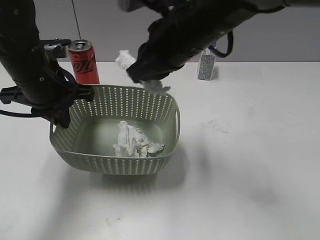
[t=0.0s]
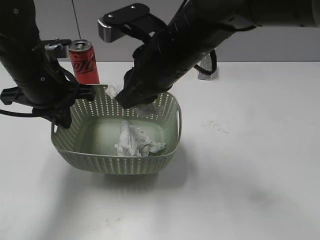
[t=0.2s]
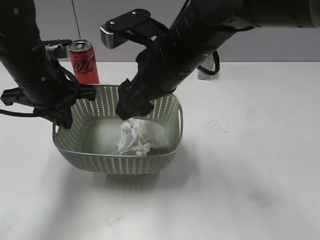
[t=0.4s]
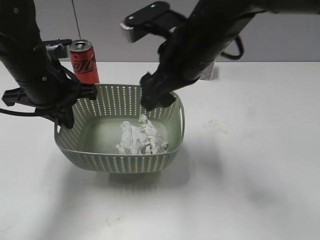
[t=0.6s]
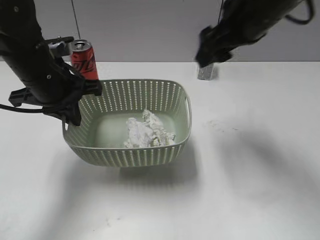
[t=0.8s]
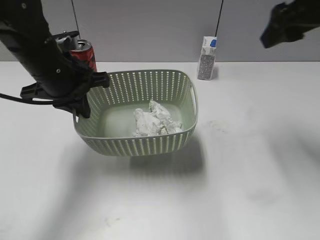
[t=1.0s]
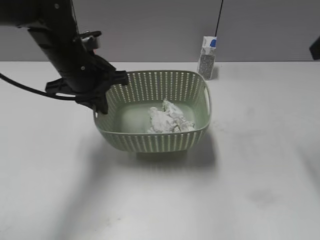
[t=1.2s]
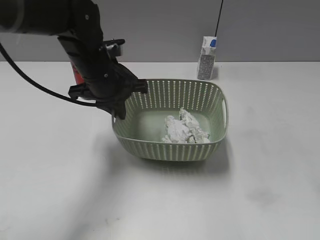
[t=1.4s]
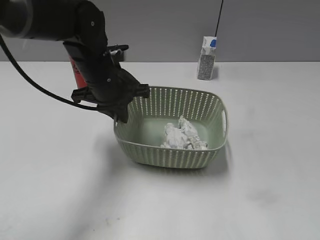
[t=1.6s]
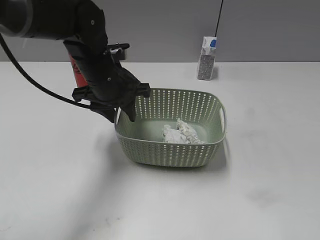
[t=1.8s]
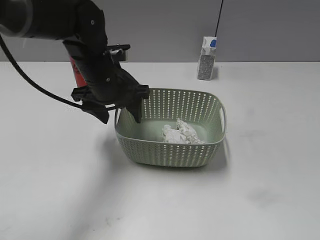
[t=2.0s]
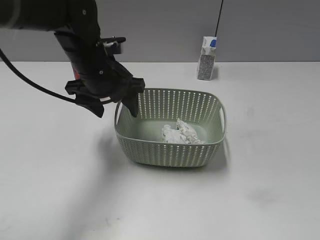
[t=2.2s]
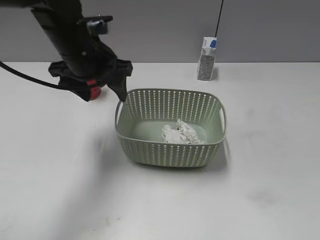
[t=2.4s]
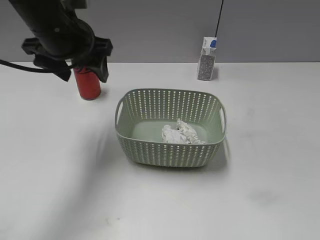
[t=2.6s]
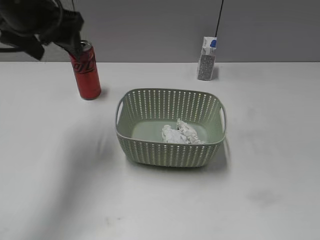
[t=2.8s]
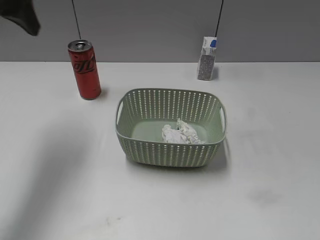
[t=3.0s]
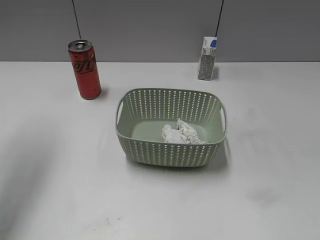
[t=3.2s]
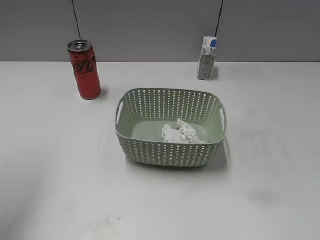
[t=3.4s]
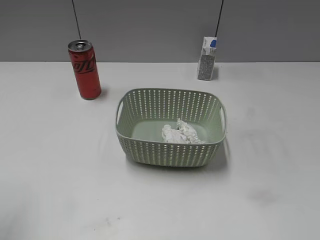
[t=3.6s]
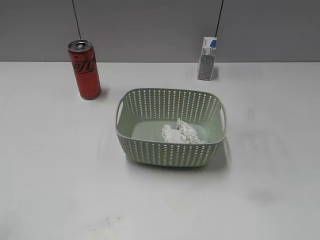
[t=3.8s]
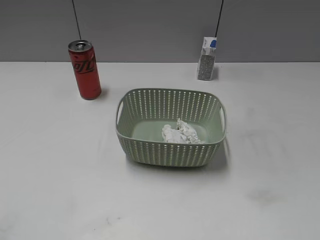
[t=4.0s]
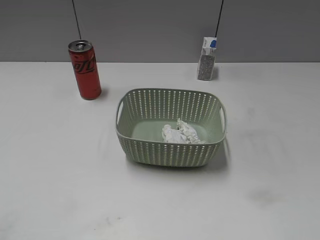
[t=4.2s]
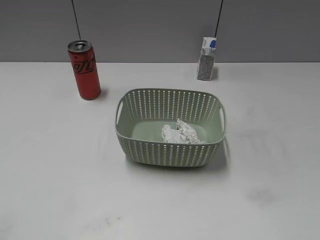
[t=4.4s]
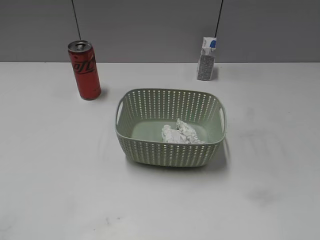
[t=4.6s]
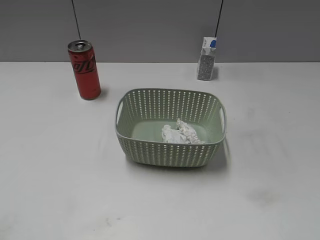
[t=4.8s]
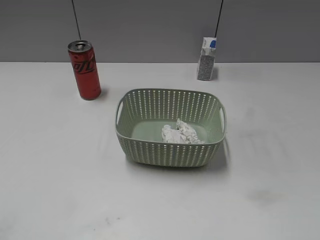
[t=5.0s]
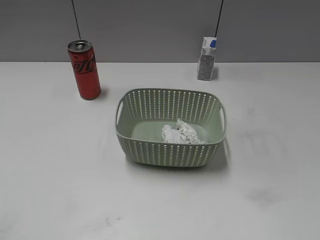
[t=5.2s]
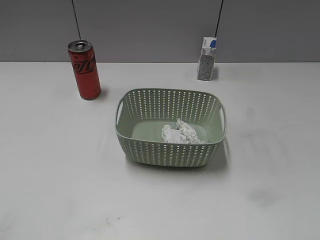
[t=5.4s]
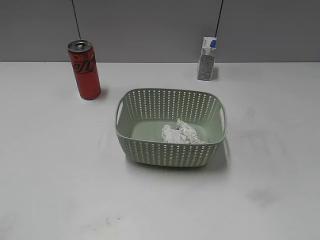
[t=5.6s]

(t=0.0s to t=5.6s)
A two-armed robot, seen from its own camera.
Step, t=0.0s - t=0.6s: Place the waste paper in the basket with right gripper.
Step, t=0.8s - t=1.8s: Place the basket on the table with left gripper.
t=0.0s - t=1.4s: The left gripper moves to the right, roughly 10 cm, while the right gripper goes approximately 25 cm to the right and backward, and opens.
t=1.4s - t=2.8s: The left gripper is displaced upward and to the left by roughly 15 cm, and opens up. Meanwhile the right gripper is displaced backward by roughly 20 cm.
t=2.8s - t=4.2s: The left gripper goes about 35 cm backward and to the left.

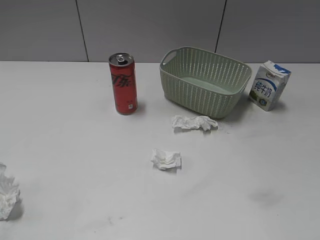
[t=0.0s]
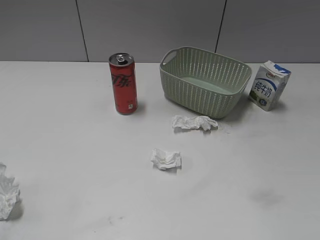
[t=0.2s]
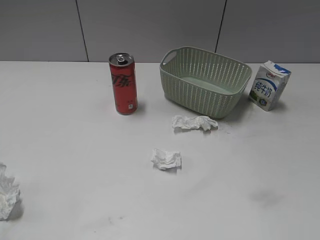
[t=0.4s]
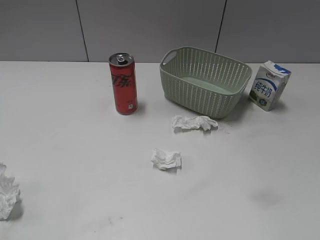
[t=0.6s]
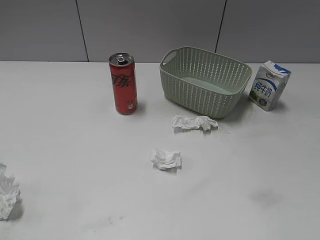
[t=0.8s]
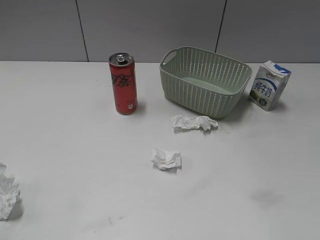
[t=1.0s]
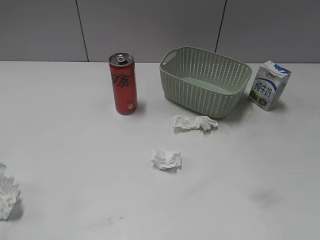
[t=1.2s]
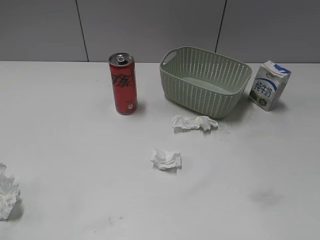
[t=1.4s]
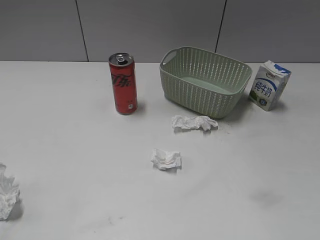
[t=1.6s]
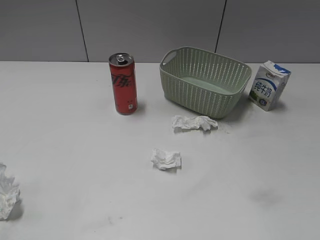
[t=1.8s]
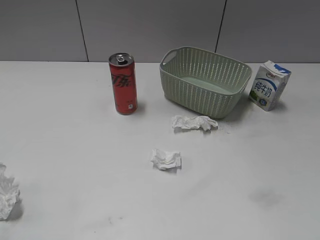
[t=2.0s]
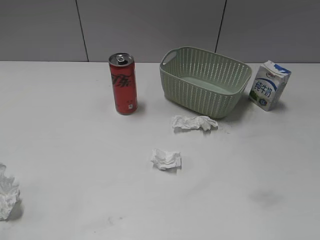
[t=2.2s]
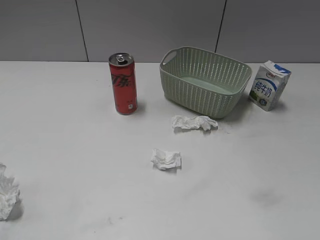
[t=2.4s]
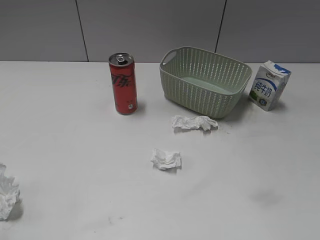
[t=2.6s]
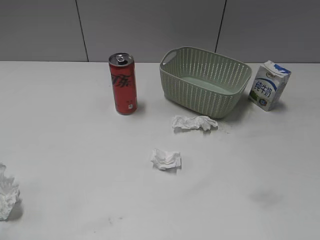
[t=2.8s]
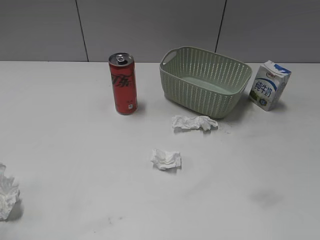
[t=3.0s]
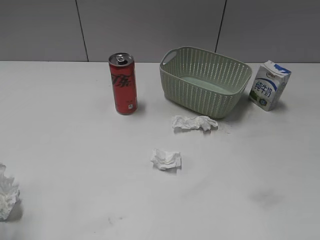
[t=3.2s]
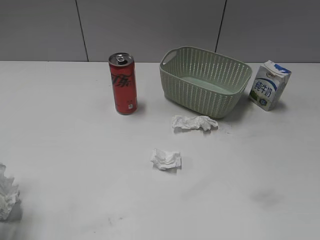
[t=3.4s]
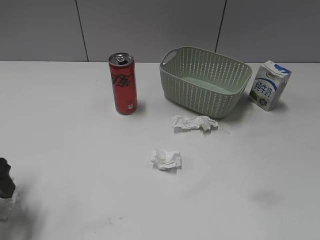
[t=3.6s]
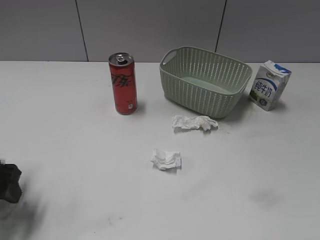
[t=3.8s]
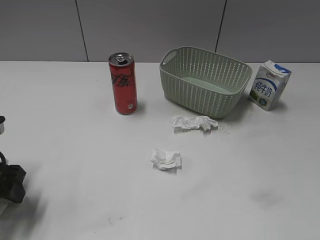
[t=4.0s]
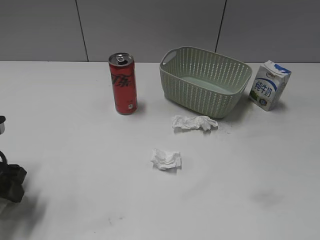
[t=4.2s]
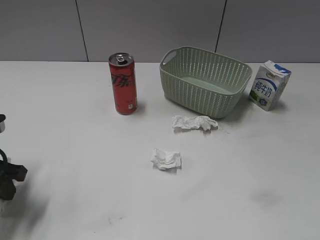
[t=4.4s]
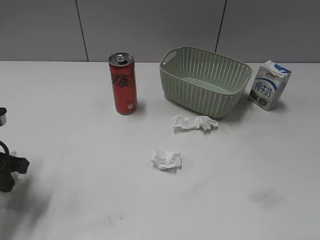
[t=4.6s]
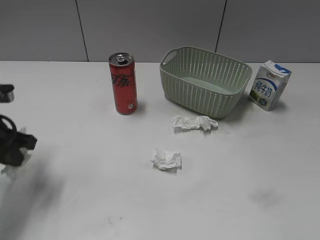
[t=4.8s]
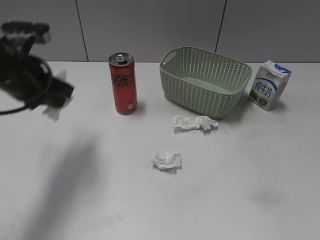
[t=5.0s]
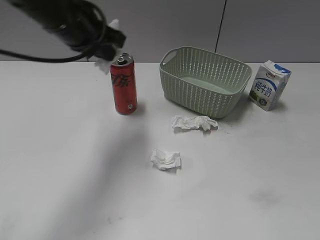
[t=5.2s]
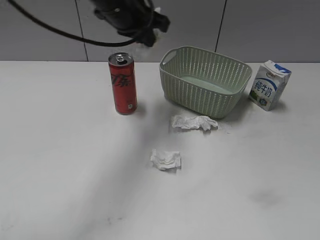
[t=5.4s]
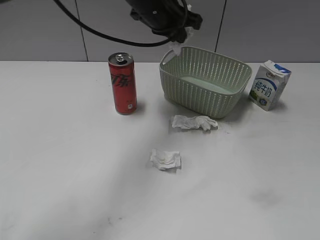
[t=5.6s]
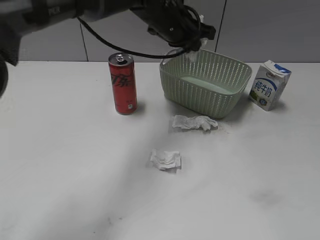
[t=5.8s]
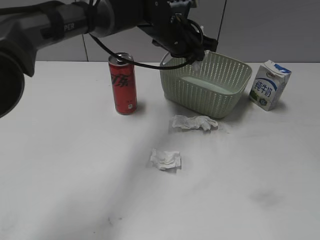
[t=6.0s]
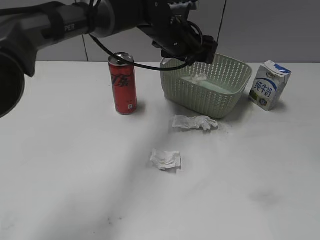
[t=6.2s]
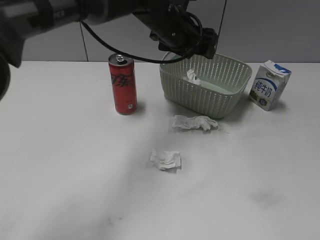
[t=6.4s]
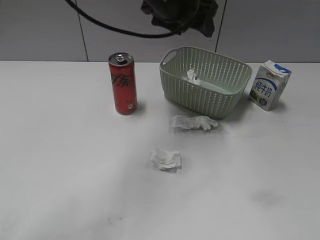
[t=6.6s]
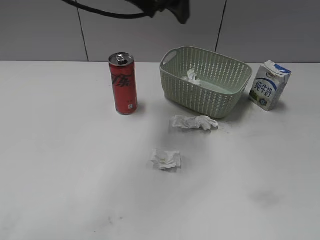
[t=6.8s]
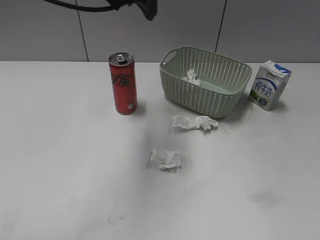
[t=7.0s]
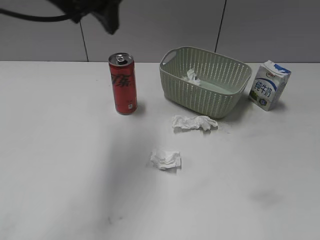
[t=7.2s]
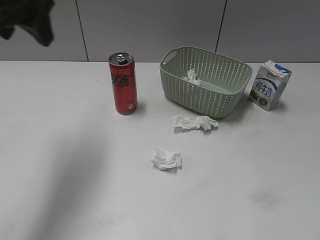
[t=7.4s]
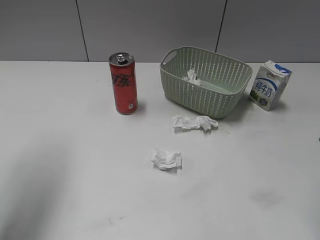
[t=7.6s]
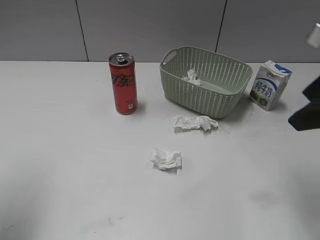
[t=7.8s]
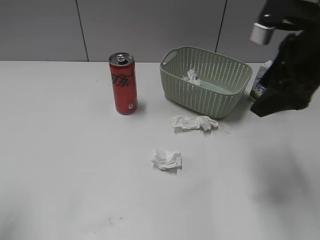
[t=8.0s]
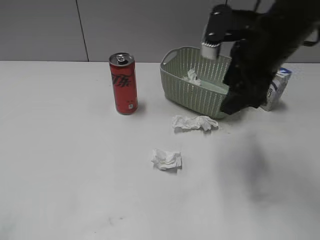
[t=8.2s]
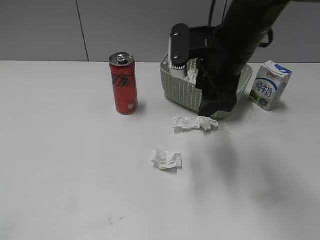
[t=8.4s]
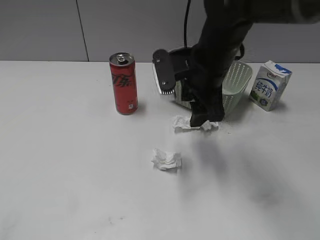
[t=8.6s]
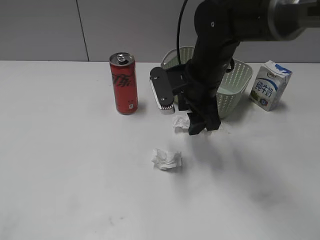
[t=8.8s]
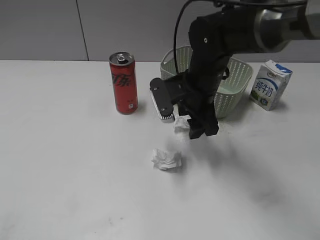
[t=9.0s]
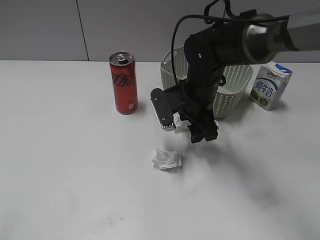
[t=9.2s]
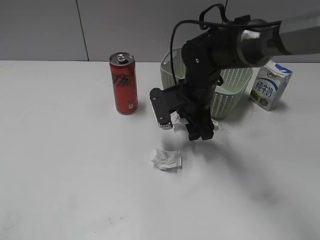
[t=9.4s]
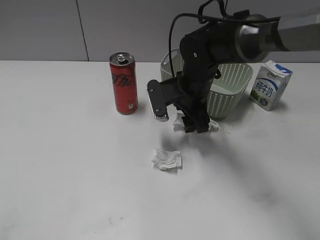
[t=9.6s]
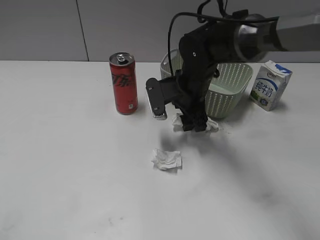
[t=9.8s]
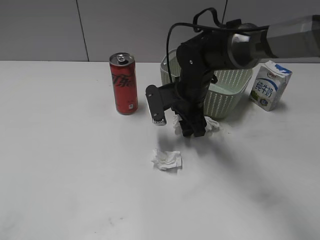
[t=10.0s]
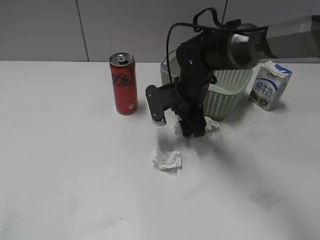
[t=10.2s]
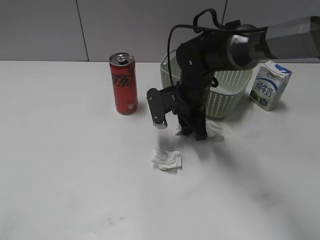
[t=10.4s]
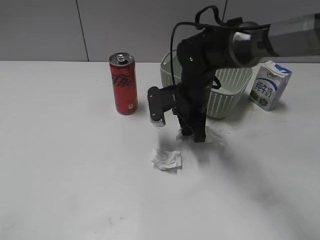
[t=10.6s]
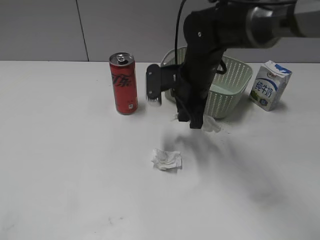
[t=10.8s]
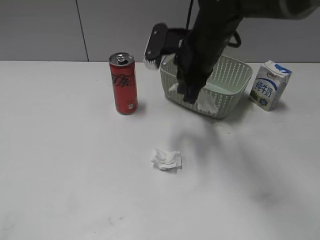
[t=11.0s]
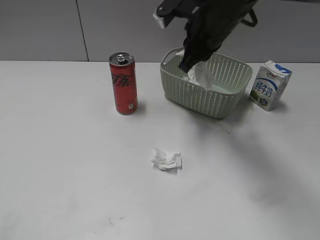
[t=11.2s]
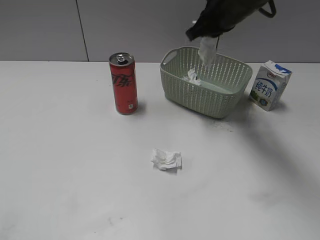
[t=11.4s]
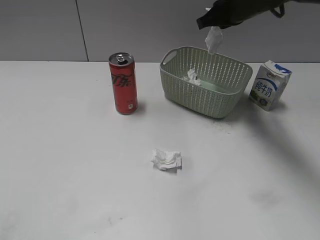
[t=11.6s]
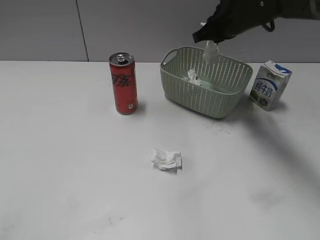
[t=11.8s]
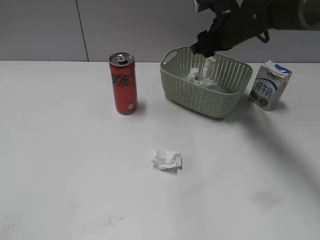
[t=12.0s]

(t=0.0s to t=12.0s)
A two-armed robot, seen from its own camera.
Step, t=3.6s - t=4.8s: Grasp the waste paper with left gripper.
Step, t=5.0s - t=6.4s: Place the waste paper in the basket with left gripper.
Step, t=6.6s - t=10.6s: Grasp the waste paper with right gripper.
t=3.0s - t=4.4s: The left gripper shifts approximately 15 cm downward and forward, and closes up.
t=4.4s - t=6.0s: The left gripper shifts some 40 cm to the right and forward.
t=6.0s - t=7.6s: The left gripper shifts some 40 cm to the left, backward and upward, and opens its fingers, while the right gripper goes about 20 cm forward.
t=7.6s - t=9.0s: The right gripper travels to the left, forward and downward by approximately 30 cm. The left gripper goes about 25 cm backward.
t=9.0s - t=10.4s: The right gripper closes up.
t=10.4s - t=12.0s: The right gripper goes roughly 15 cm forward, upward and to the right, and opens up.

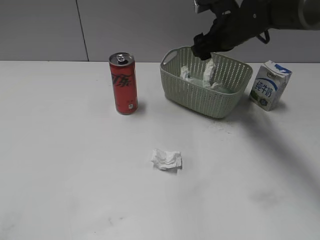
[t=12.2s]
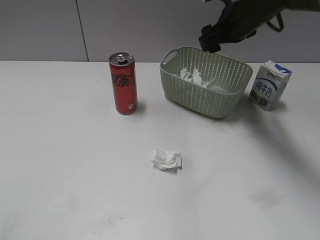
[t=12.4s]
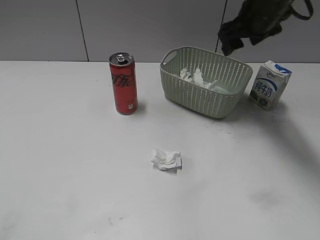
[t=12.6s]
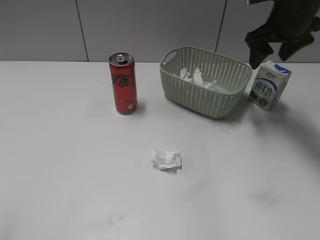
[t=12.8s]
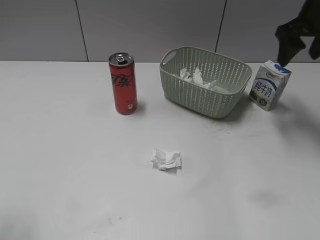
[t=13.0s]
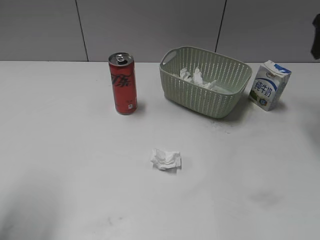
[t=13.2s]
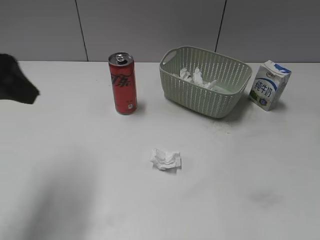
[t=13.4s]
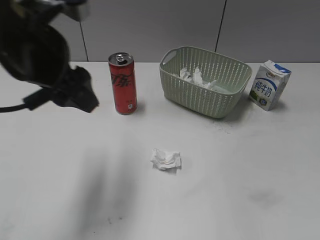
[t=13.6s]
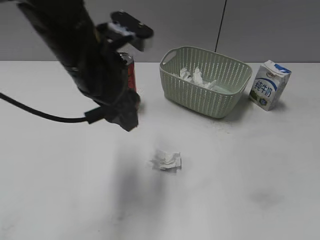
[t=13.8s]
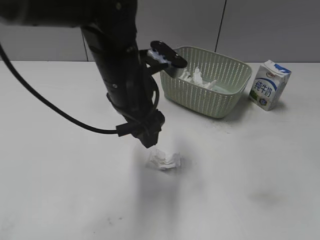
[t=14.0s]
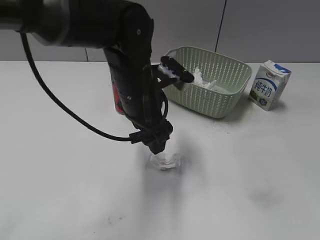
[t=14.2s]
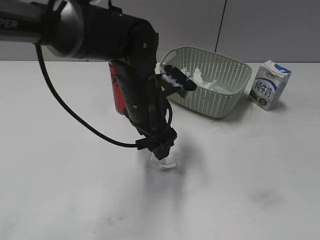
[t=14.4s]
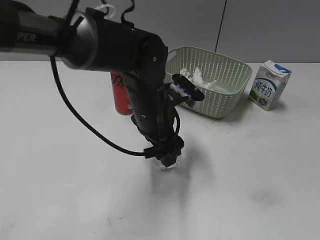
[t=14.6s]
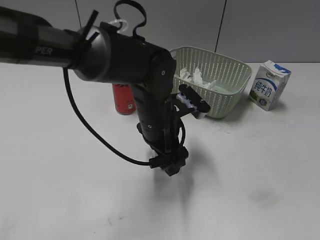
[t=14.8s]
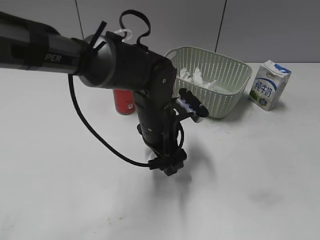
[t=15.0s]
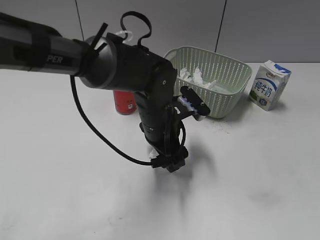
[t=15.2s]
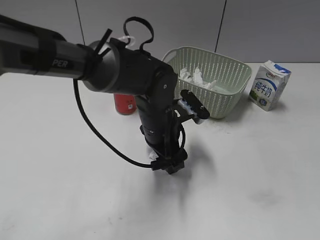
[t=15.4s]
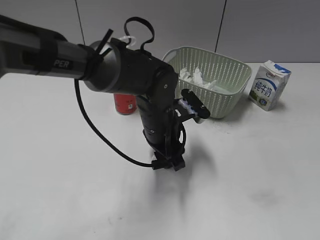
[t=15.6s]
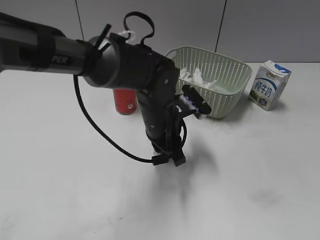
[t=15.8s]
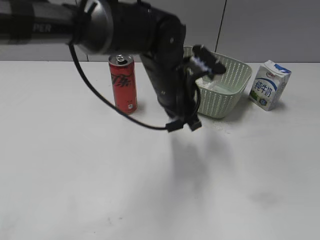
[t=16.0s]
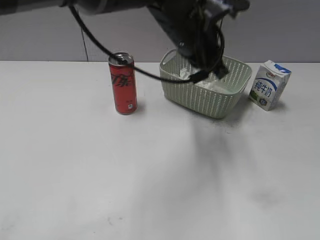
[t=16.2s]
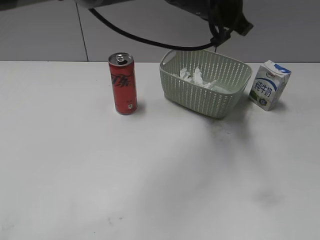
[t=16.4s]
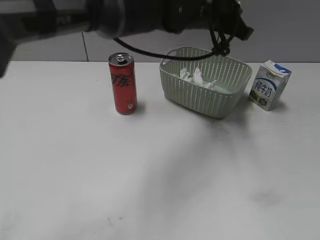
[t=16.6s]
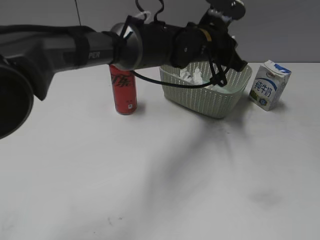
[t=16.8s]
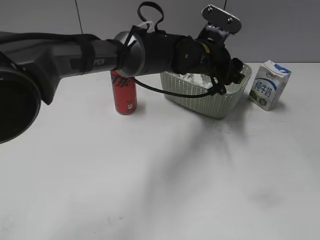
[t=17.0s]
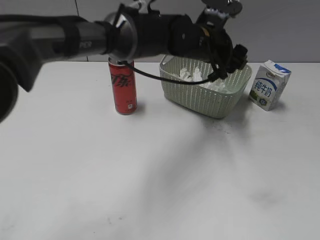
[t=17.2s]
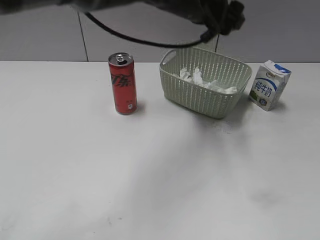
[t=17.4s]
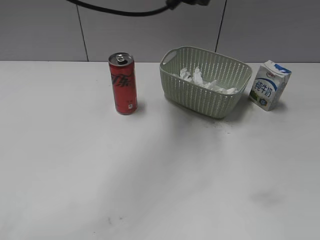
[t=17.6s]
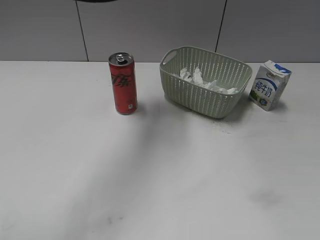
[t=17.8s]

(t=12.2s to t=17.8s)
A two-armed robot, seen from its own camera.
Step, t=12.6s - t=15.8s: Grasp the waste paper with left gripper.
Step, t=16.0s - t=17.0s: Place the waste paper in the basket with left gripper.
t=12.2s - t=13.6s: The left gripper moves forward and to the right, some 35 cm, while the right gripper moves to the right, backward and upward, roughly 30 cm.
t=13.6s - t=15.0s: The left gripper shifts roughly 20 cm downward and to the right. Meanwhile the right gripper goes some 30 cm backward.
t=15.0s - t=16.4s: The left gripper heads upward and forward, covering approximately 20 cm, and closes.
t=16.4s - t=17.8s: The left gripper is displaced to the left and upward by roughly 15 cm, and opens its fingers.
